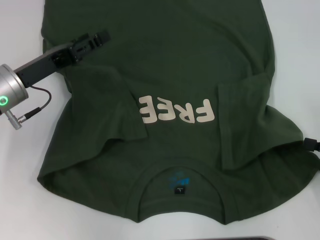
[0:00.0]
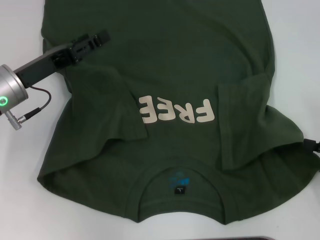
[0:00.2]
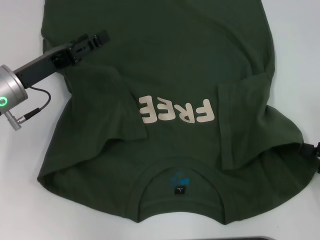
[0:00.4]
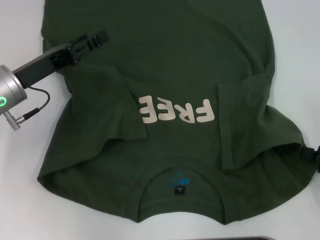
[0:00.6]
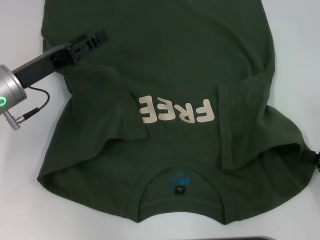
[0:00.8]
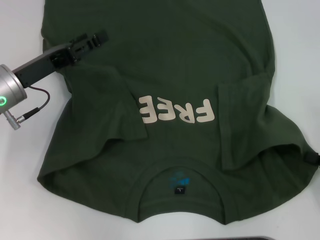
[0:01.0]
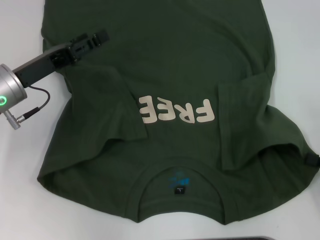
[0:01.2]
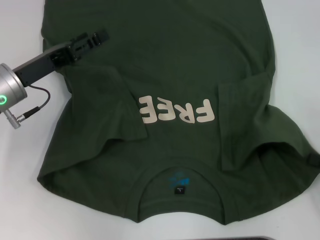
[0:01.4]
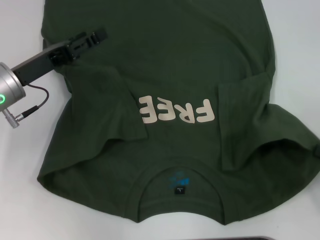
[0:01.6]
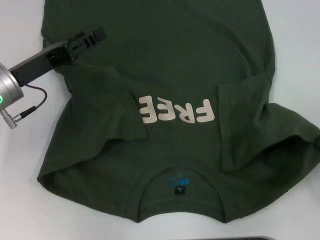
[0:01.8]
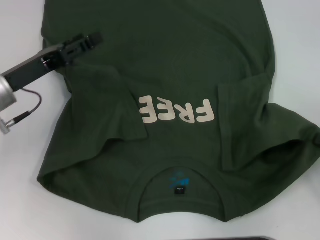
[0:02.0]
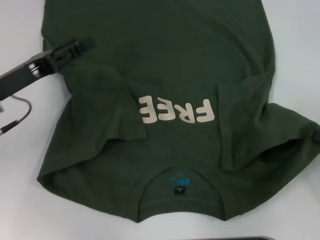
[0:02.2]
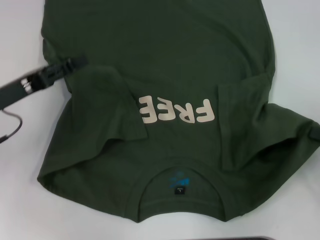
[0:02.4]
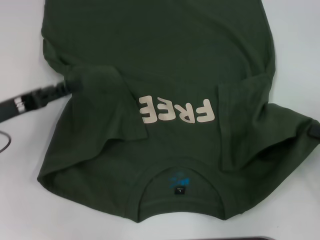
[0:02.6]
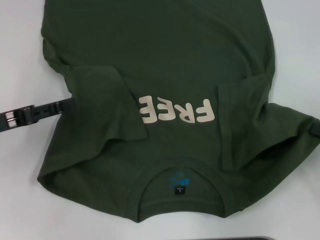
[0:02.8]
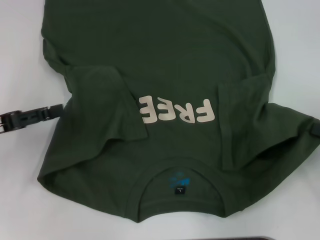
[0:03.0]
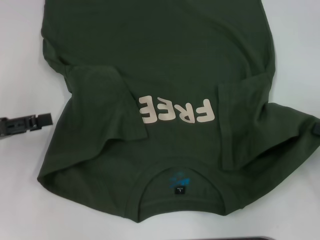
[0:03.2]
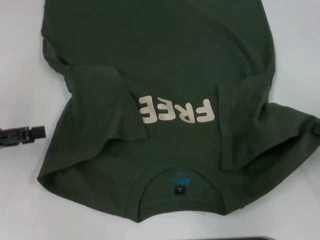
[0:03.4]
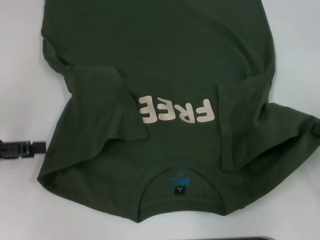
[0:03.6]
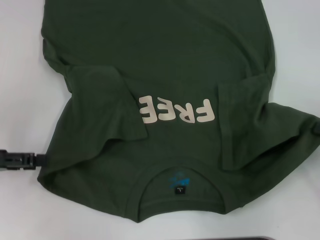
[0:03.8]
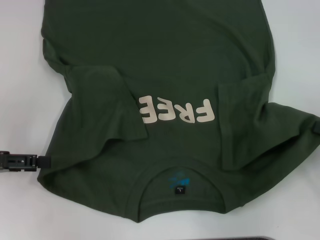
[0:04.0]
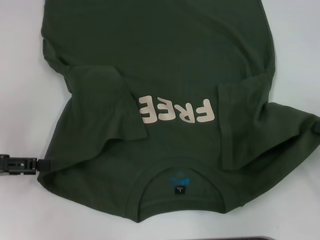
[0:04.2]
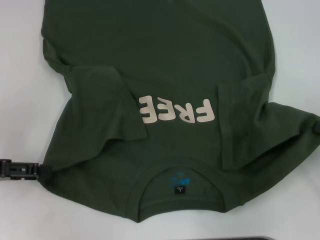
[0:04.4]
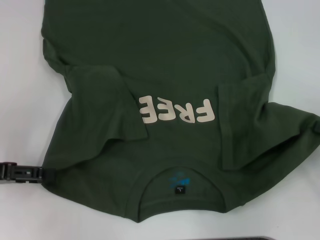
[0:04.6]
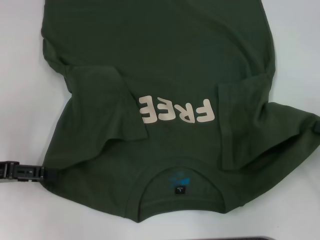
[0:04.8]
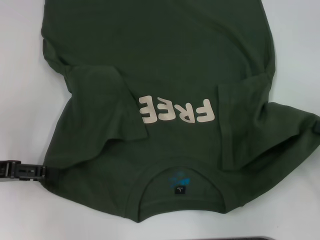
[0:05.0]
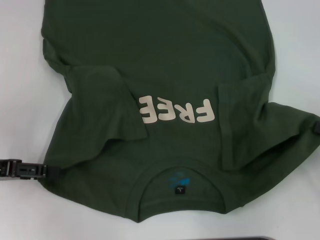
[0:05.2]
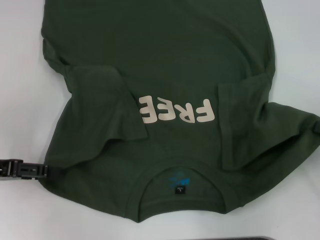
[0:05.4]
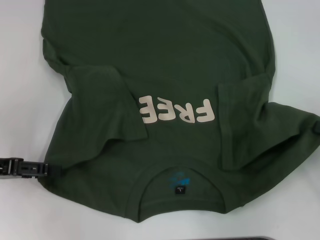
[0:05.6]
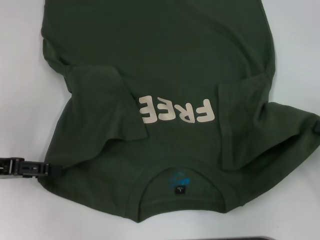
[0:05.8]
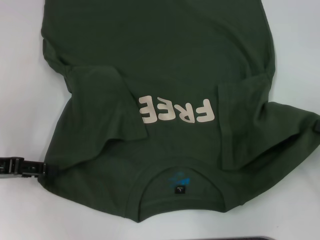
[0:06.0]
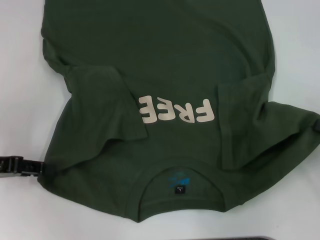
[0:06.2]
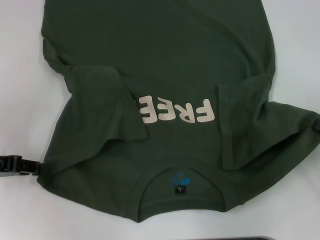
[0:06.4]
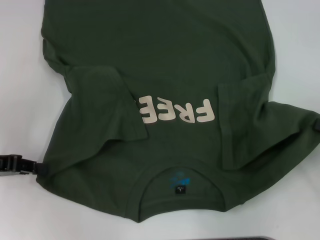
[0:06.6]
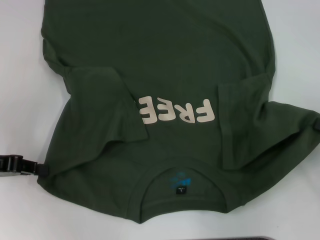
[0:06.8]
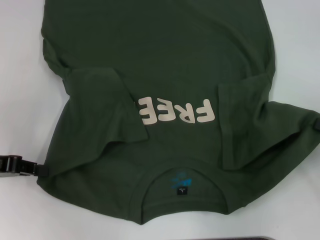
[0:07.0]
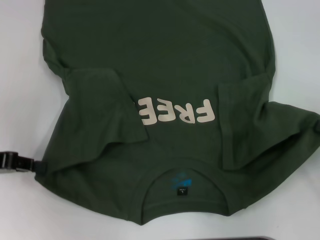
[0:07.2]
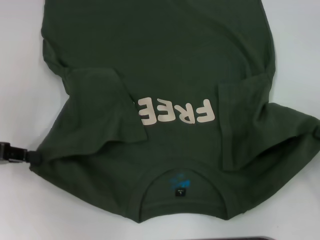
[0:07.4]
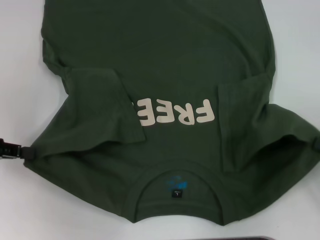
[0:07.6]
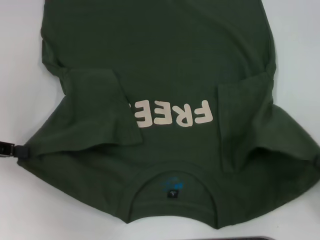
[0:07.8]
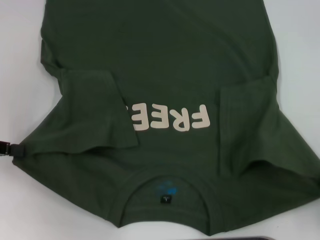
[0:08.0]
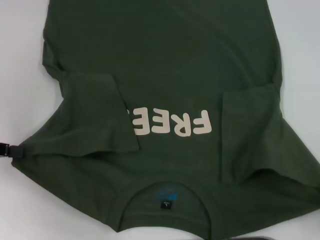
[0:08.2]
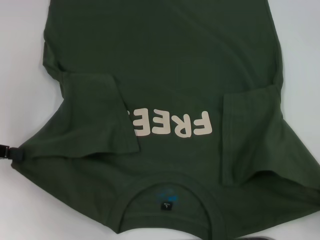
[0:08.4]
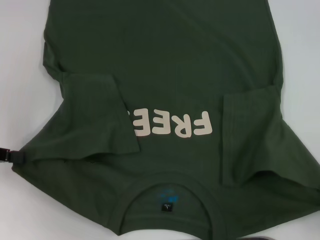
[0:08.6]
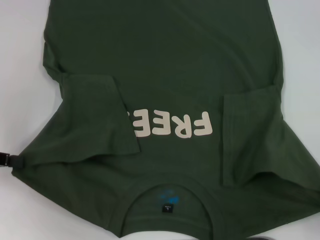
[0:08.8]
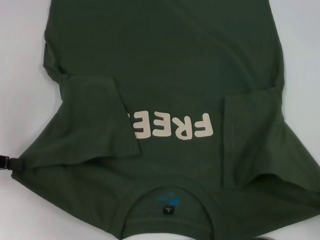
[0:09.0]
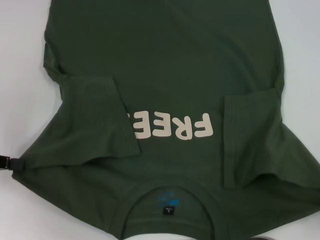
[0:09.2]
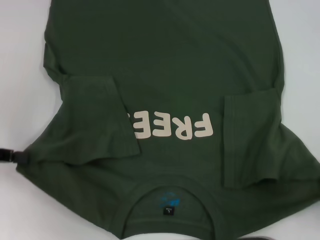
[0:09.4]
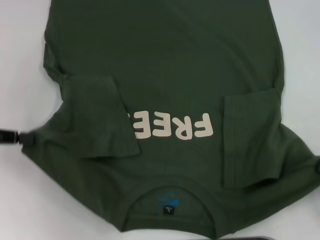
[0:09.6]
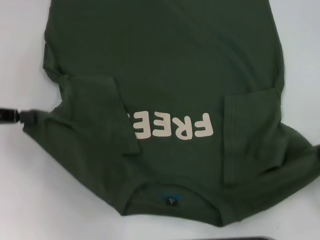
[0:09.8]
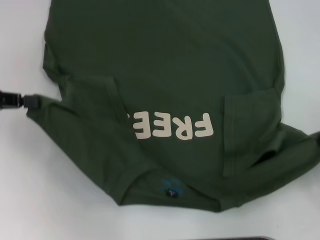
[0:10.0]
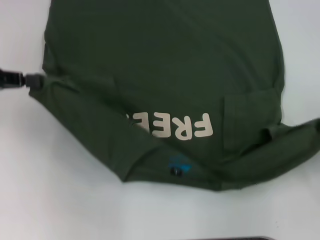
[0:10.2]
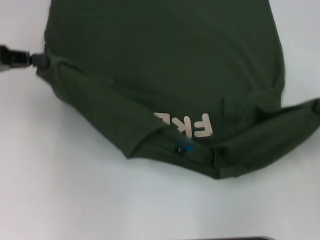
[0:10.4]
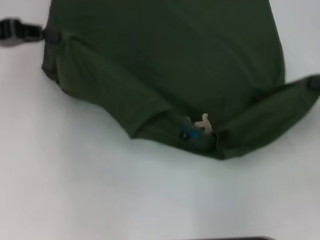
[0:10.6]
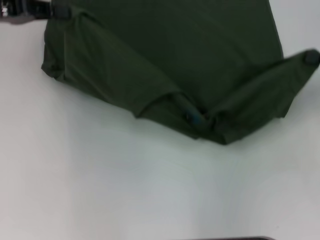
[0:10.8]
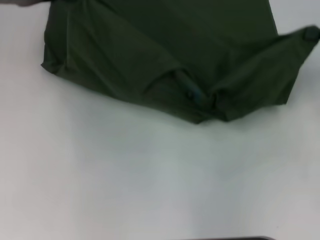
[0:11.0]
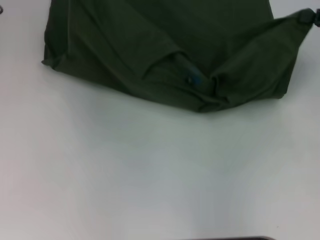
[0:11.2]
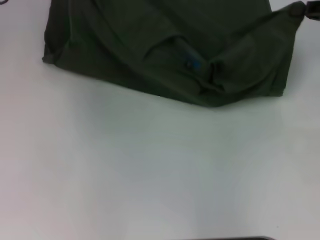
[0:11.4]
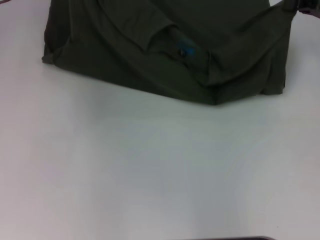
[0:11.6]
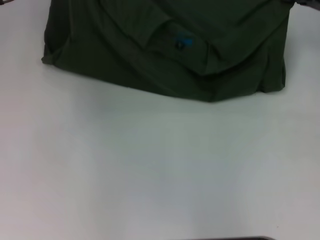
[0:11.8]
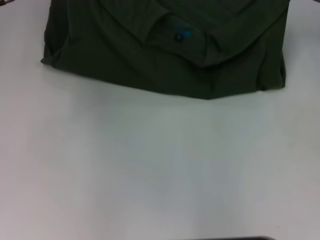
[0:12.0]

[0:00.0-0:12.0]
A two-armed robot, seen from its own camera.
Step, 0:00.0 to 0:02.2: Grab the bottom right corner with your right hand.
Step, 0:02.4 to 0:07.0: Grab the bottom left corner with your left hand.
0:00.0 to 0:01.6: The right gripper closes up.
0:01.6 to 0:03.0: The left gripper shifts about 10 cm to the left and backward.
0:06.0 to 0:07.6: The left gripper closes up.
0:07.6 to 0:09.0: The right gripper travels backward by some 10 cm.
0:09.0 to 0:10.4: The right gripper is displaced forward and upward by roughly 15 cm, while the left gripper goes some 10 cm forward and upward.
0:10.4 to 0:12.0: The right gripper travels forward by approximately 15 cm, while the left gripper goes about 15 cm forward and to the right.

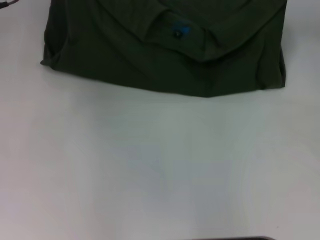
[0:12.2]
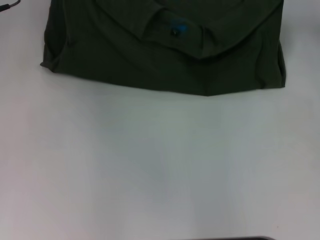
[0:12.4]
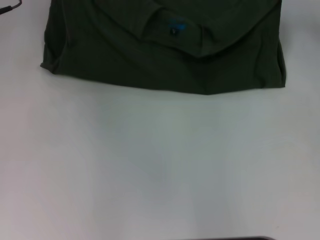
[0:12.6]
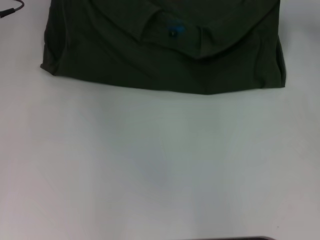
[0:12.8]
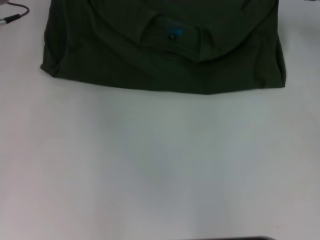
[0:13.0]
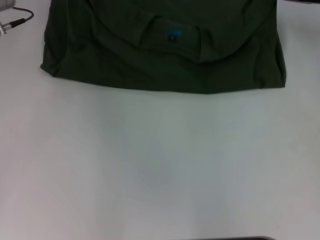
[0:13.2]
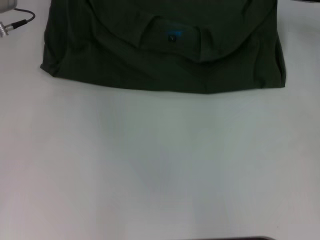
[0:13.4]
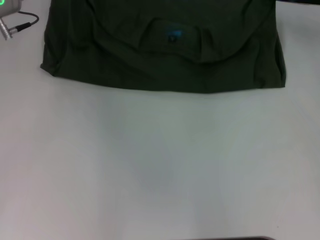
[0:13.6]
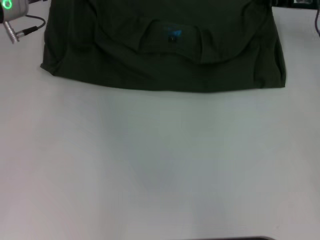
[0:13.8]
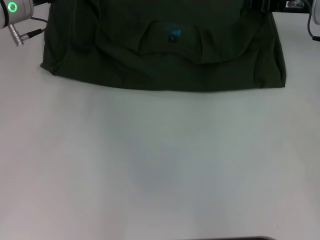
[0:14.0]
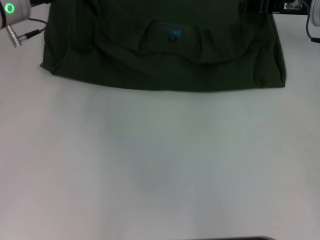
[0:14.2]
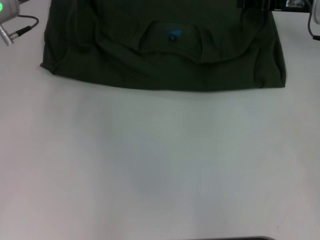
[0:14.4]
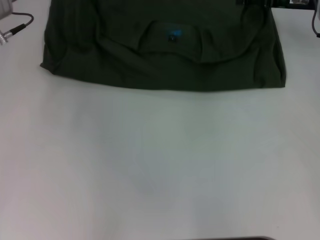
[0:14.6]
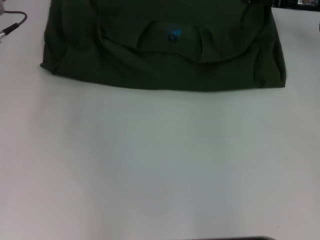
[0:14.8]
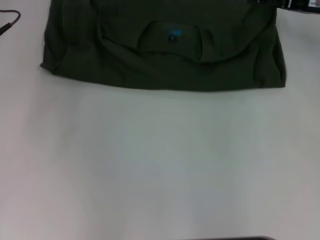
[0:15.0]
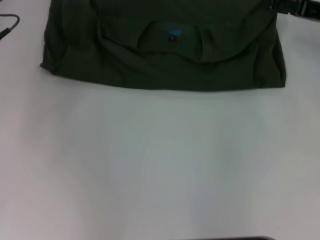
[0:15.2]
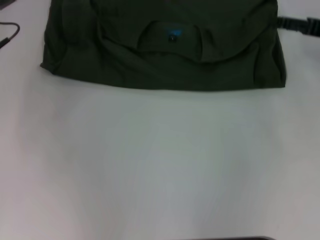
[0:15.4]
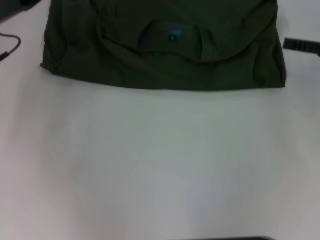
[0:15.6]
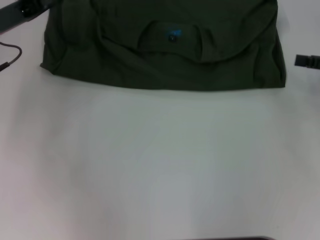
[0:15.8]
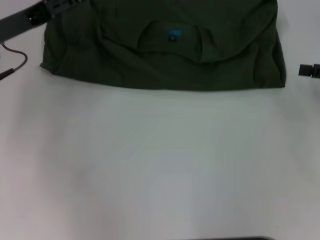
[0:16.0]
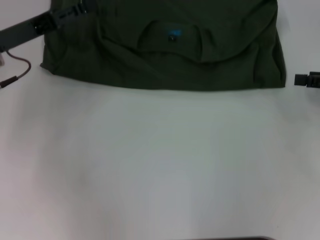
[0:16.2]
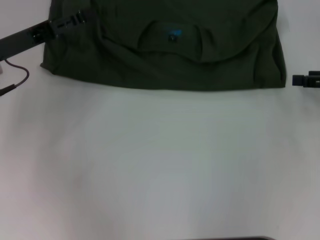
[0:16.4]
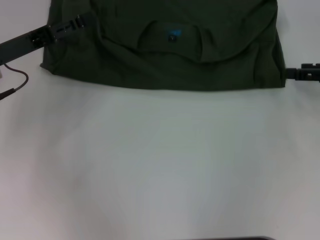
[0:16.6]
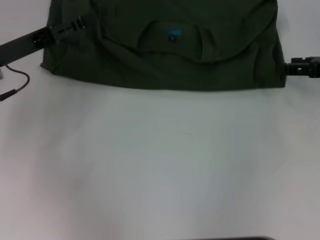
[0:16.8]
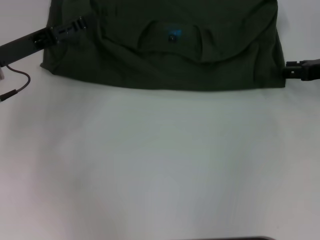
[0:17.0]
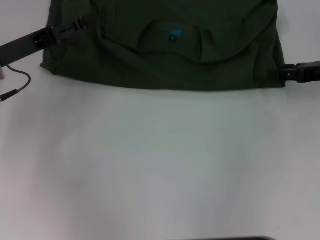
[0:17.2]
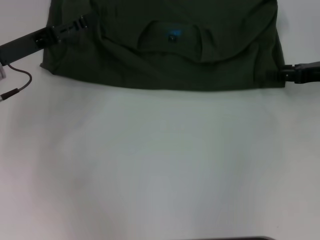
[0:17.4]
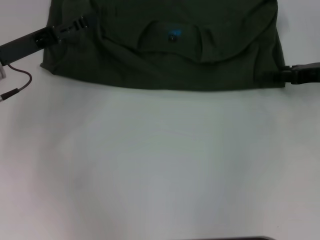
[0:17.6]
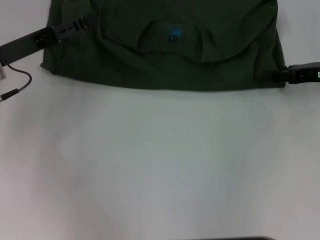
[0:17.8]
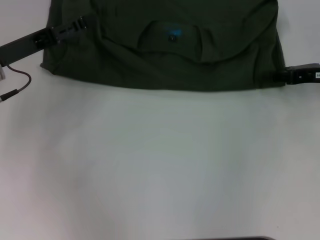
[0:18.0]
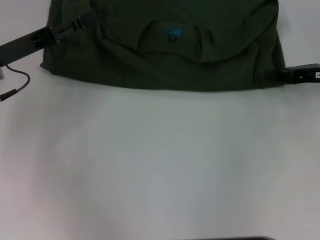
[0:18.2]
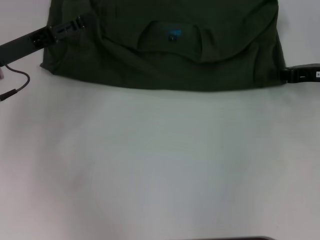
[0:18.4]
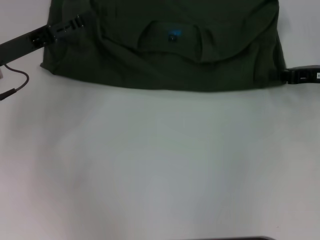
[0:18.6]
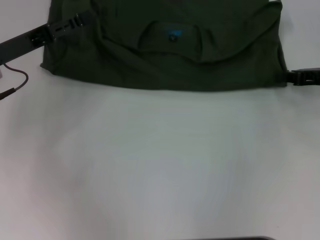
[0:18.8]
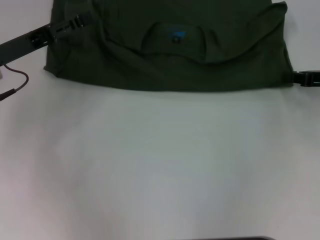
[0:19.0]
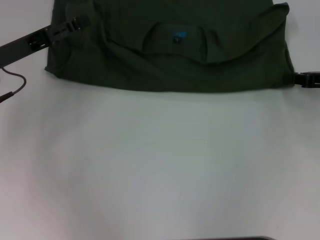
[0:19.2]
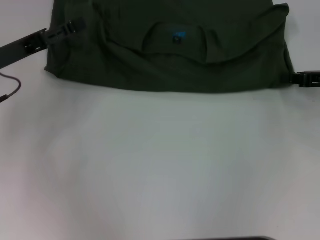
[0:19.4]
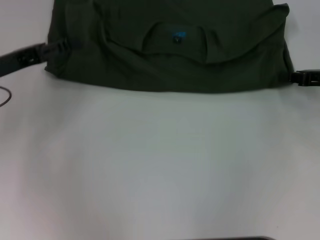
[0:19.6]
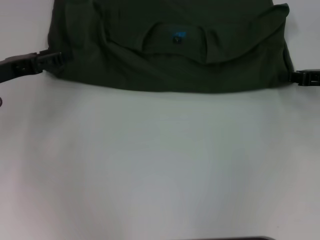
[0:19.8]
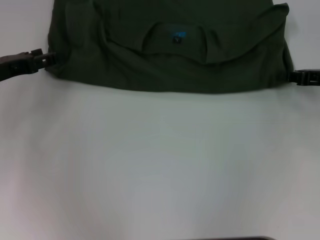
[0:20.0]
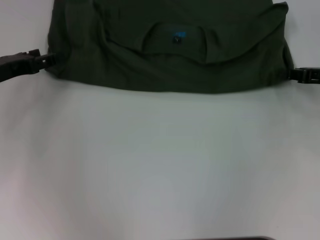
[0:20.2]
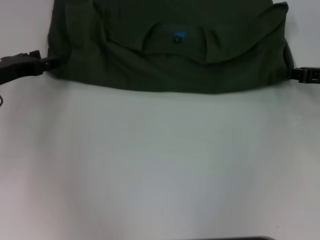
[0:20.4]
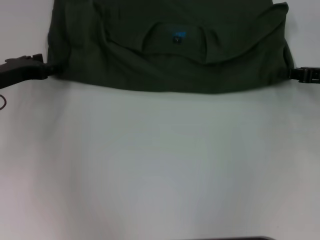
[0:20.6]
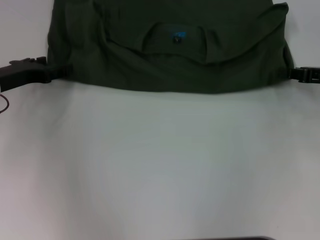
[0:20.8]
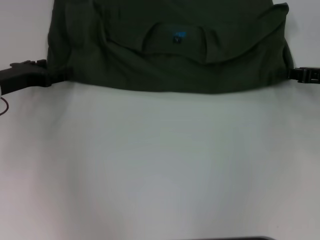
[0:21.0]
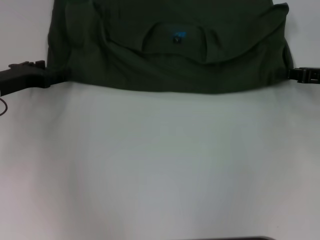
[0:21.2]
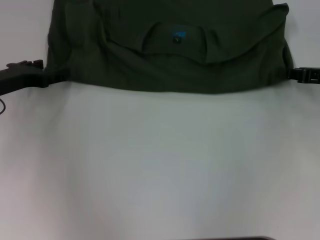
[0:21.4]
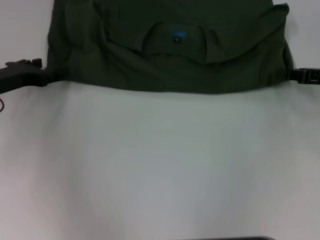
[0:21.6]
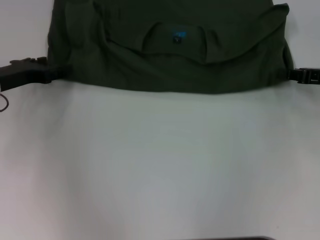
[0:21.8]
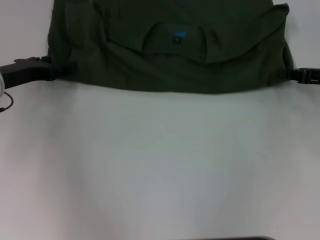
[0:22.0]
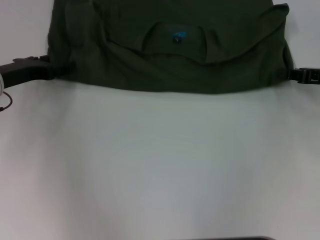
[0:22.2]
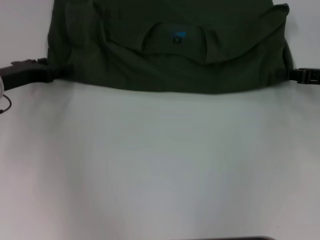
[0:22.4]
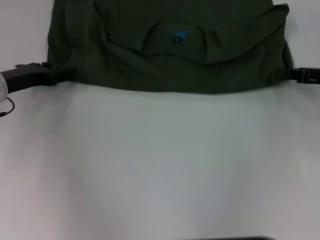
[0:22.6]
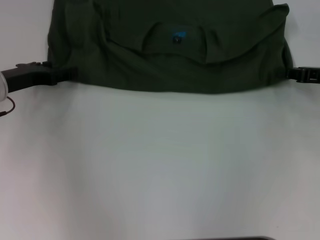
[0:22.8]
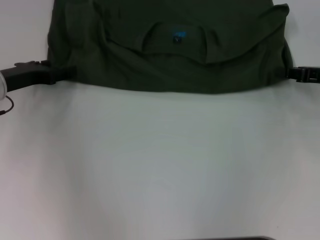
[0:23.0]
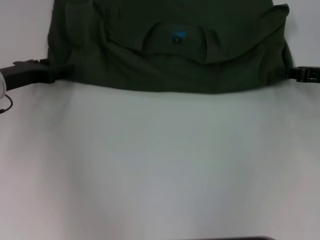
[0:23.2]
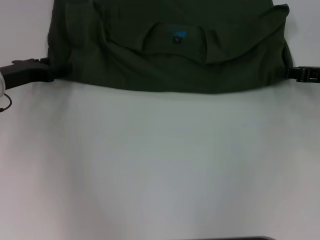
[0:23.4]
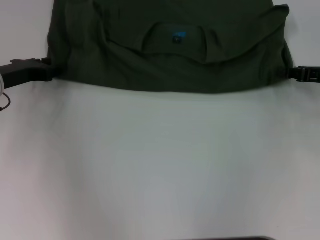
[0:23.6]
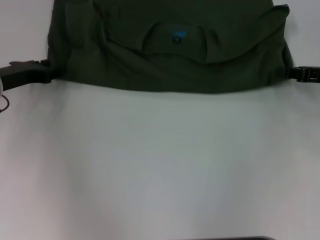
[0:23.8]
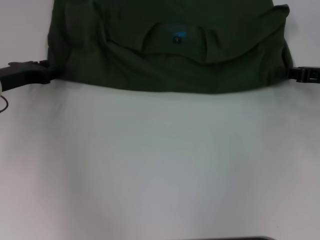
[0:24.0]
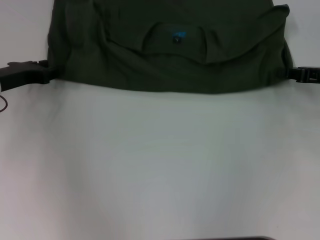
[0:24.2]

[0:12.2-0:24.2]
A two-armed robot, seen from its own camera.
Step, 0:12.2 to 0:14.2: Fold the clothes with your left hand.
Step, 0:12.2 to 0:14.2: Fold the clothes with your right hand.
0:12.2 to 0:13.8: The right gripper shifts by roughly 5 cm; the left gripper moves approximately 5 cm.
0:13.8 to 0:15.2: The right gripper is displaced backward by some 5 cm, and opens its fingers. The left gripper changes place by about 5 cm, and opens.
0:15.2 to 0:16.6: The two grippers go roughly 5 cm backward.
0:18.2 to 0:19.8: The right gripper closes.
0:21.2 to 0:22.6: Both grippers stay put.
0:22.6 to 0:24.2: The left gripper closes up.
